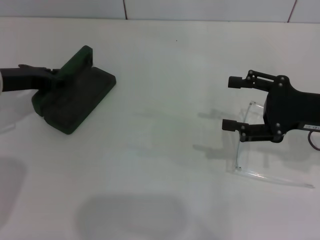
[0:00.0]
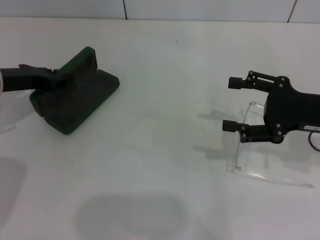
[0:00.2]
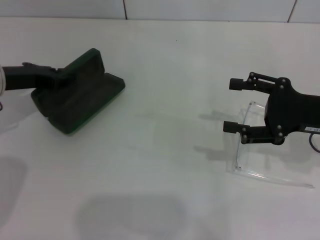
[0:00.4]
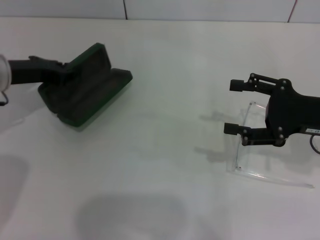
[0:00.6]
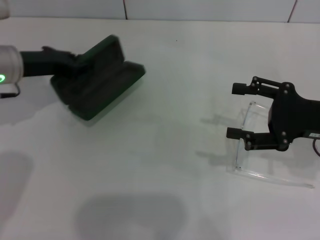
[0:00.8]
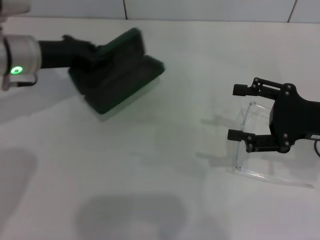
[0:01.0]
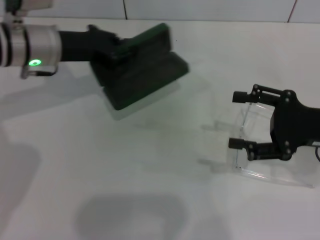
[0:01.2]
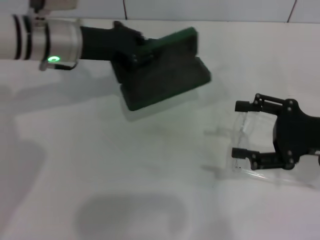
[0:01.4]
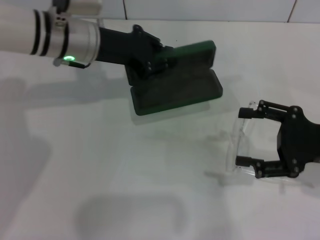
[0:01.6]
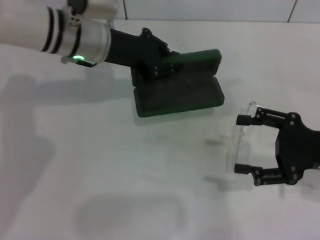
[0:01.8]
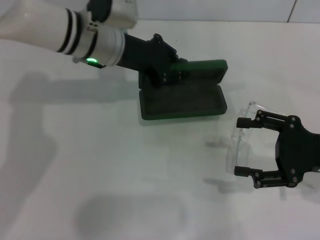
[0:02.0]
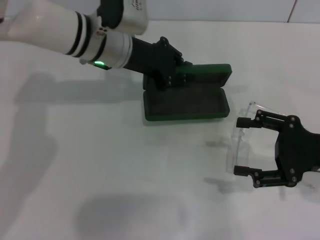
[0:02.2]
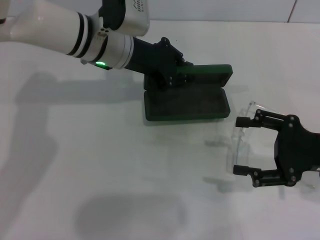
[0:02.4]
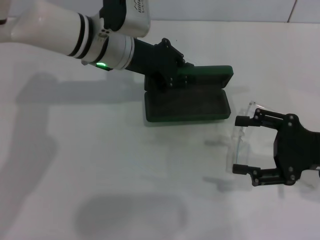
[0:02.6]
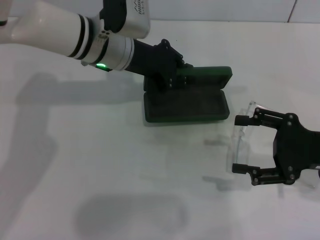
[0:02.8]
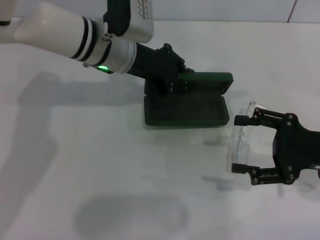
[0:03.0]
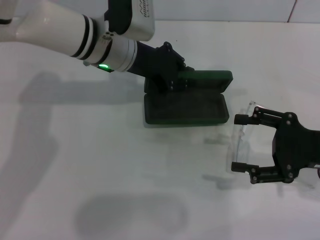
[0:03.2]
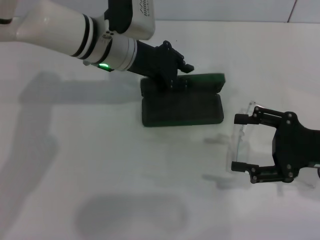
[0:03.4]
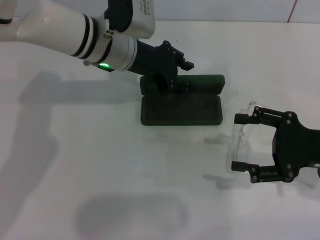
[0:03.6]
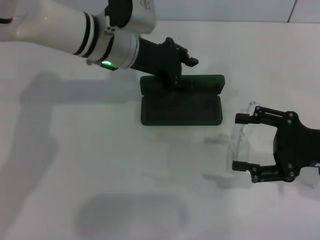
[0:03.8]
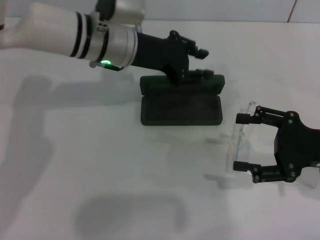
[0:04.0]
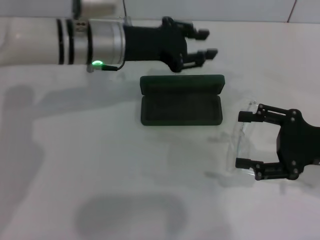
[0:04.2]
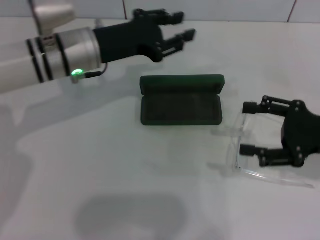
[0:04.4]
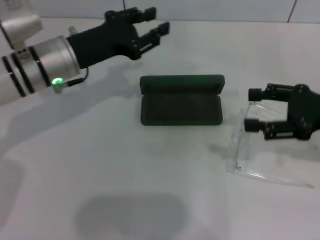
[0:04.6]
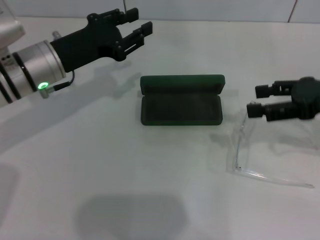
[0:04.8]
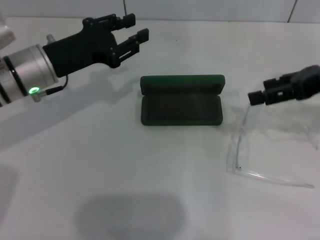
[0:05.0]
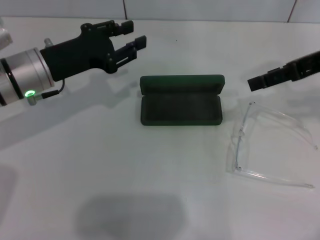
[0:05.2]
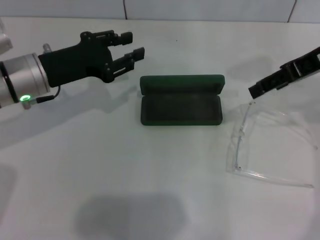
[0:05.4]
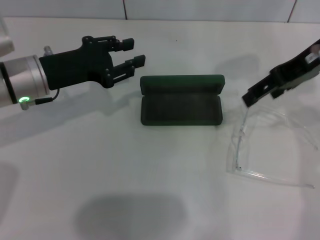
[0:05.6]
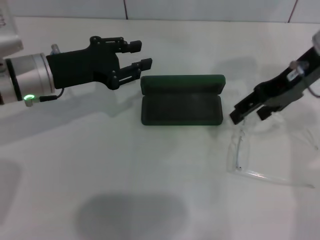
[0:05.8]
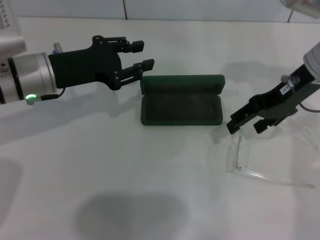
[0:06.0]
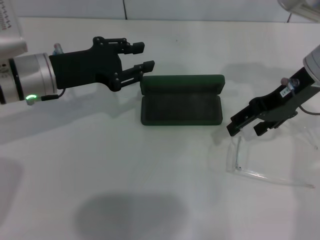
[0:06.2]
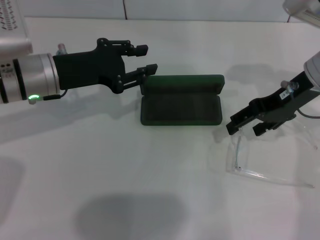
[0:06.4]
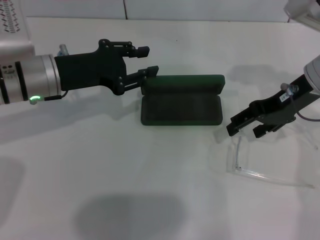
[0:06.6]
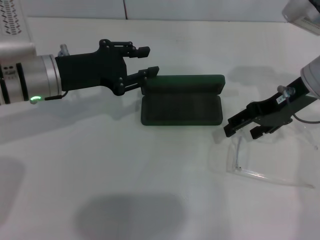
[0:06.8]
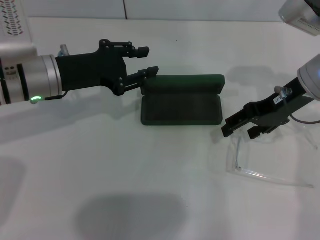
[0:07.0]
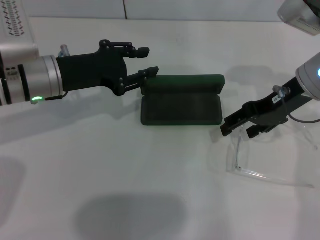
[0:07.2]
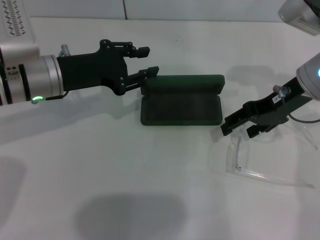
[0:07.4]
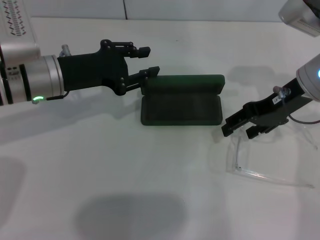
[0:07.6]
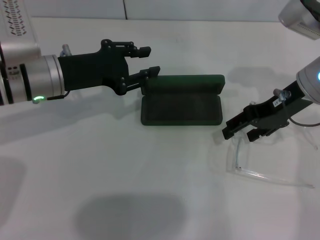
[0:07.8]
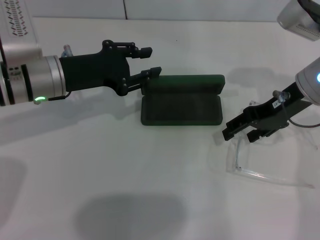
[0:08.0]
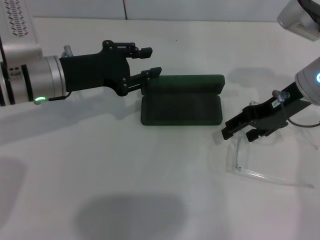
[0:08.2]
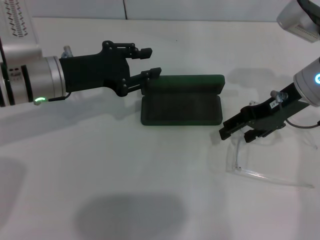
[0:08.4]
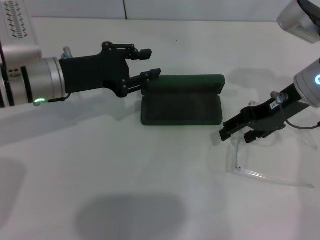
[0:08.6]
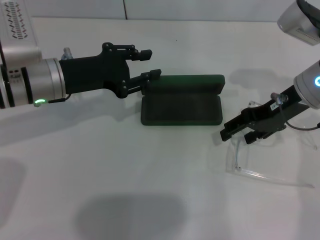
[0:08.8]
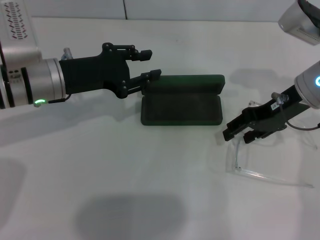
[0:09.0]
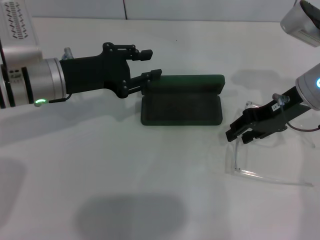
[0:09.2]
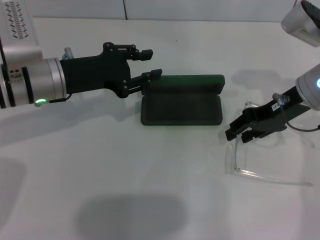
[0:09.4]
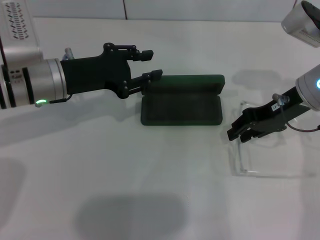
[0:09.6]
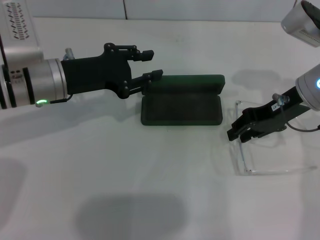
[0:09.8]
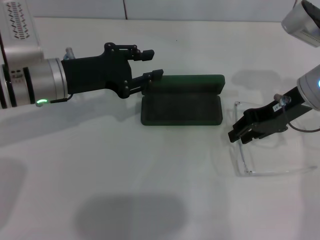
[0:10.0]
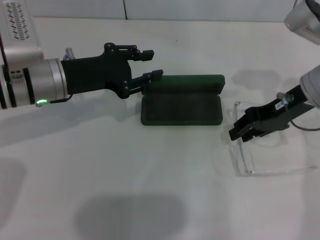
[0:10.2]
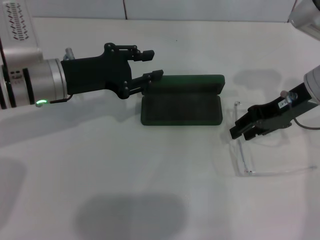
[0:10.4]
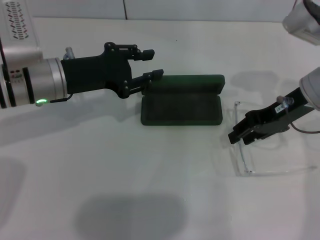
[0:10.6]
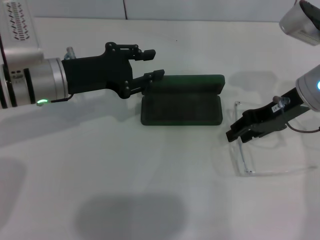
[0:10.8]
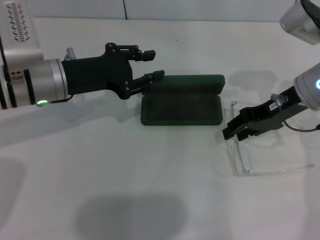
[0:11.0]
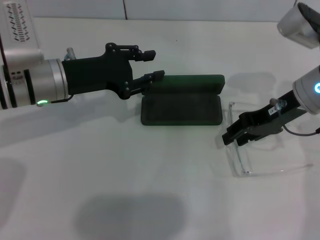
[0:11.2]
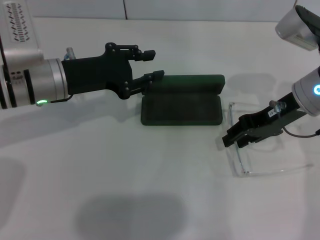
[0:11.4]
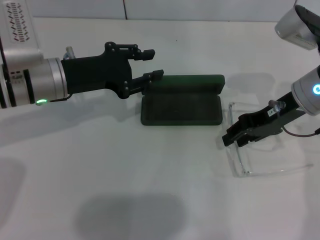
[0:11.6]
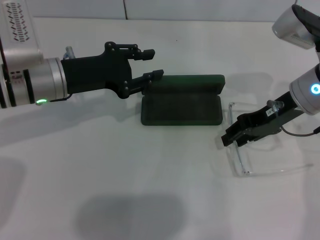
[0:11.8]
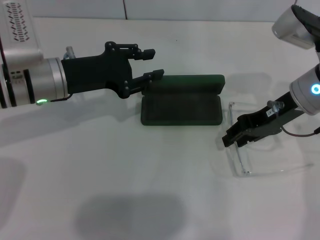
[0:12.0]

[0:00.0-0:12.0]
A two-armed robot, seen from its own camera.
Step, 0:00.0 to 0:03.6: Place the glasses case in the center of the table with your left hand.
0:00.0 to 0:01.6: The left gripper goes about 15 cm to the right, and closes up.
0:01.6 to 0:03.0: The left gripper moves approximately 5 cm.
0:03.0 to 0:04.4: The left gripper heads to the left, covering some 5 cm, and opens up.
0:04.4 to 0:06.0: The left gripper is displaced to the left by roughly 5 cm. The right gripper shifts roughly 15 cm forward, to the left and upward.
0:06.0 to 0:09.0: The grippers stay close to where they were, moving slightly.
0:09.0 to 0:10.4: The right gripper closes its fingers.
0:10.4 to 0:12.0: There are only small adjustments of the grippers.

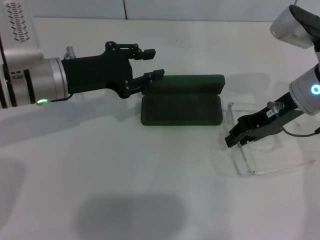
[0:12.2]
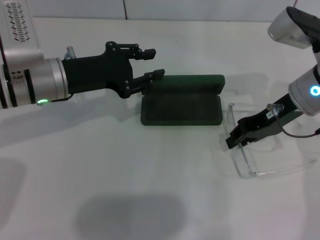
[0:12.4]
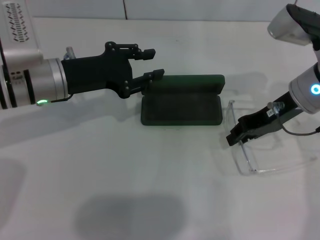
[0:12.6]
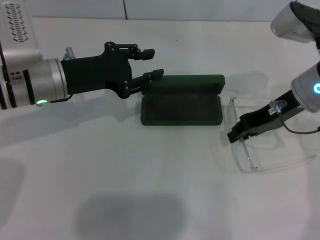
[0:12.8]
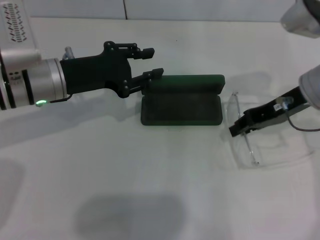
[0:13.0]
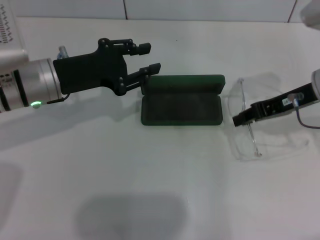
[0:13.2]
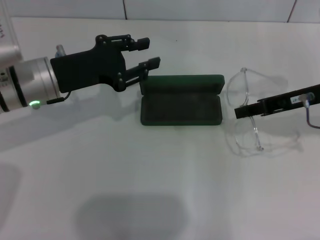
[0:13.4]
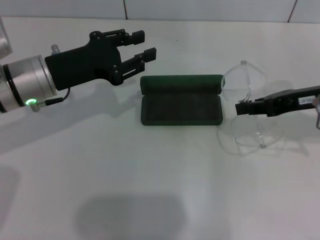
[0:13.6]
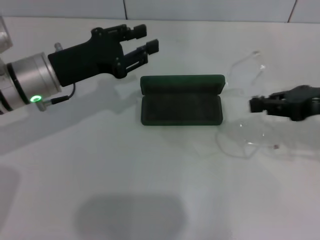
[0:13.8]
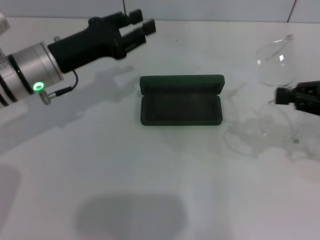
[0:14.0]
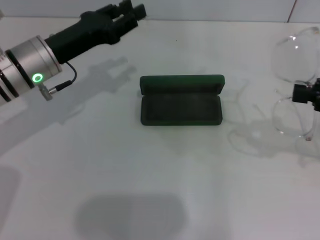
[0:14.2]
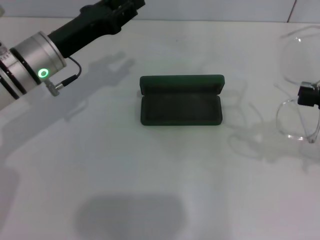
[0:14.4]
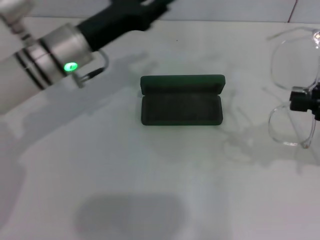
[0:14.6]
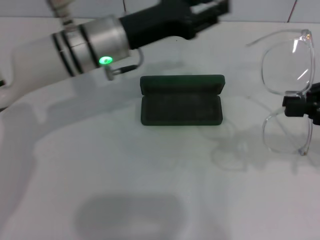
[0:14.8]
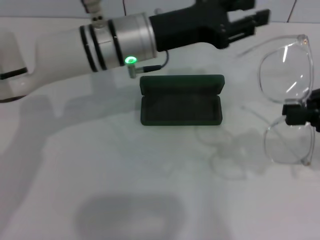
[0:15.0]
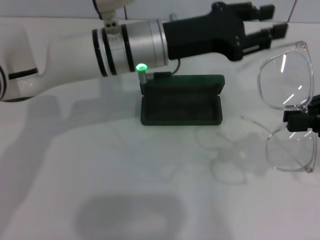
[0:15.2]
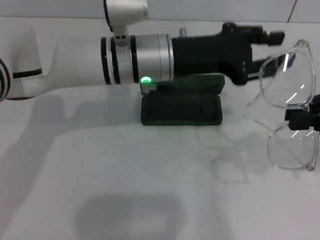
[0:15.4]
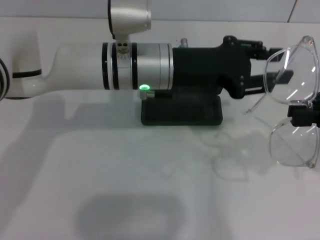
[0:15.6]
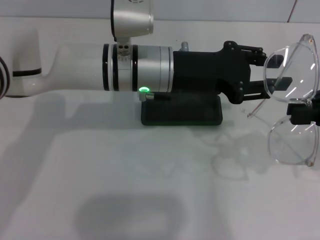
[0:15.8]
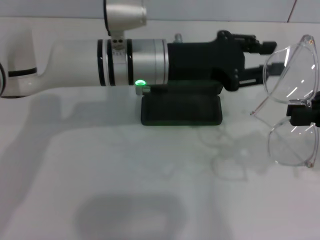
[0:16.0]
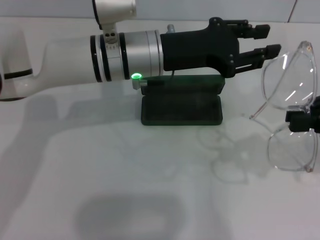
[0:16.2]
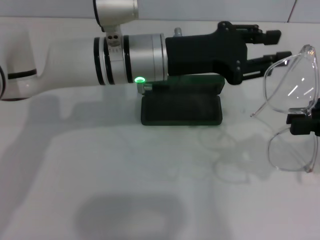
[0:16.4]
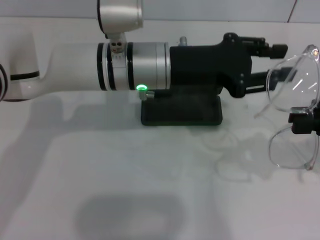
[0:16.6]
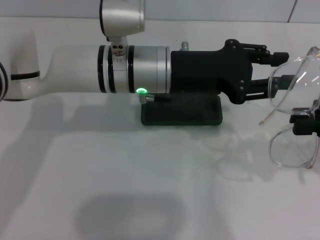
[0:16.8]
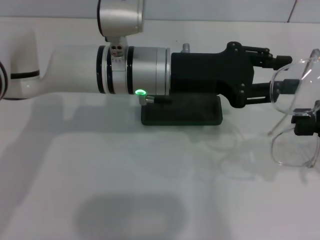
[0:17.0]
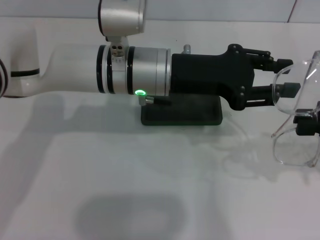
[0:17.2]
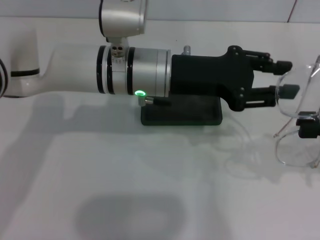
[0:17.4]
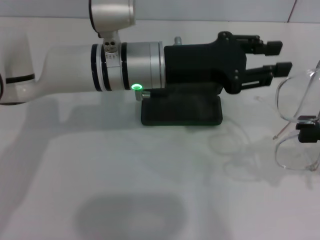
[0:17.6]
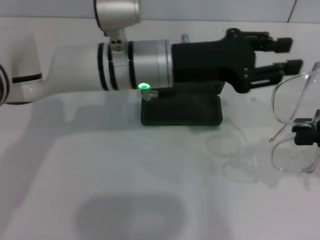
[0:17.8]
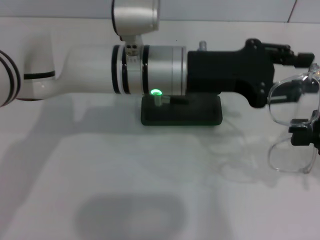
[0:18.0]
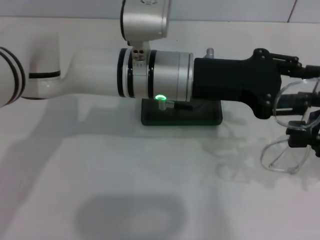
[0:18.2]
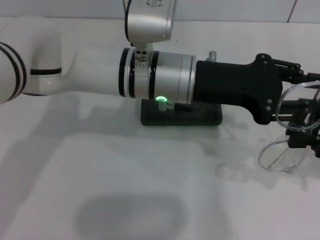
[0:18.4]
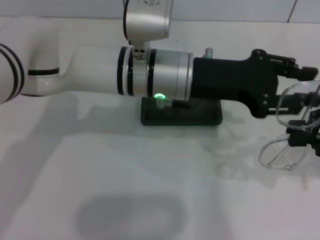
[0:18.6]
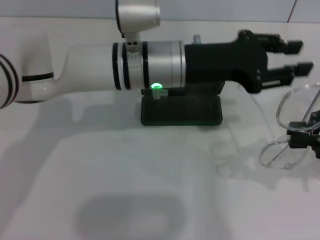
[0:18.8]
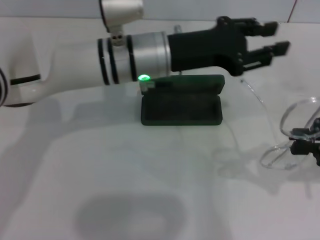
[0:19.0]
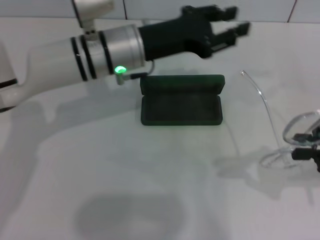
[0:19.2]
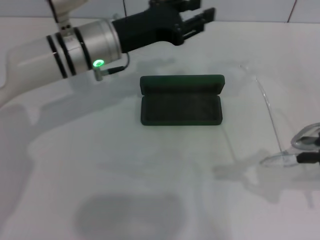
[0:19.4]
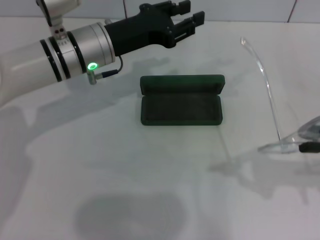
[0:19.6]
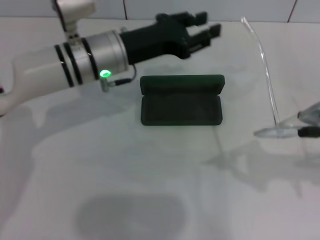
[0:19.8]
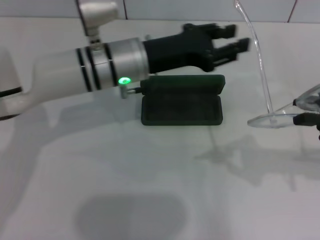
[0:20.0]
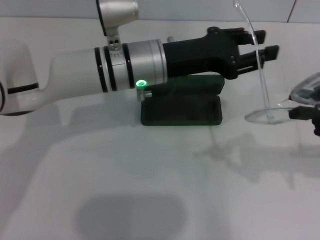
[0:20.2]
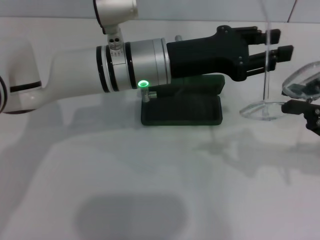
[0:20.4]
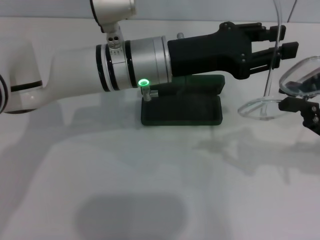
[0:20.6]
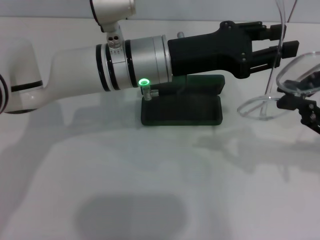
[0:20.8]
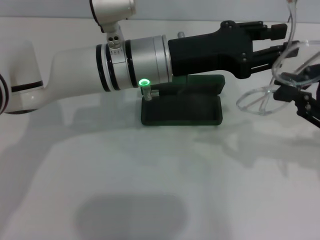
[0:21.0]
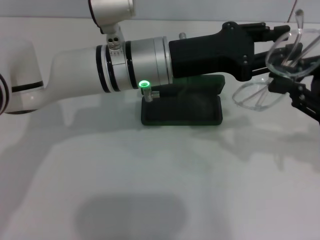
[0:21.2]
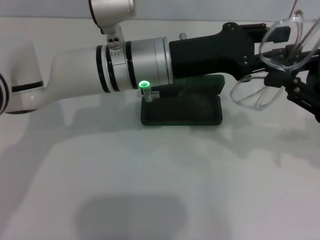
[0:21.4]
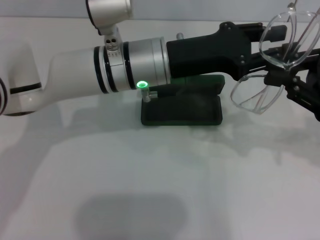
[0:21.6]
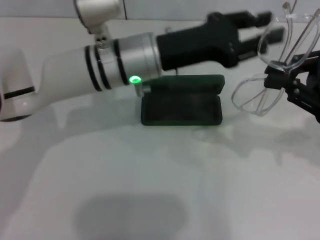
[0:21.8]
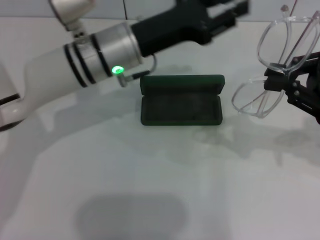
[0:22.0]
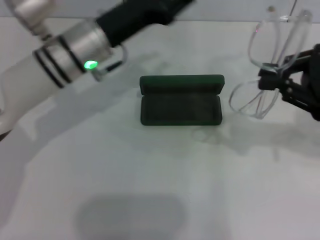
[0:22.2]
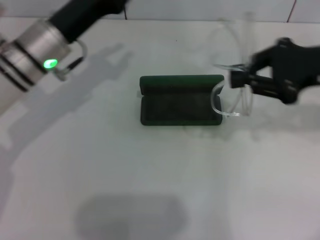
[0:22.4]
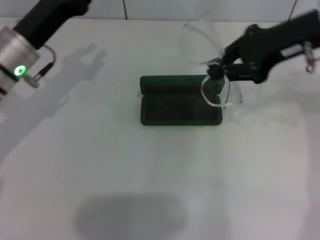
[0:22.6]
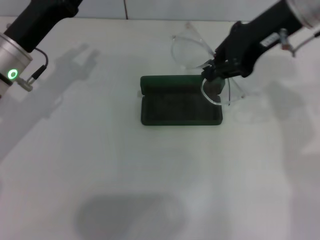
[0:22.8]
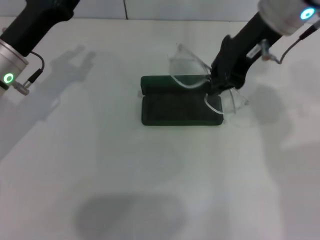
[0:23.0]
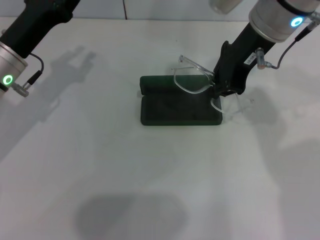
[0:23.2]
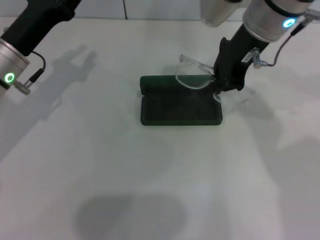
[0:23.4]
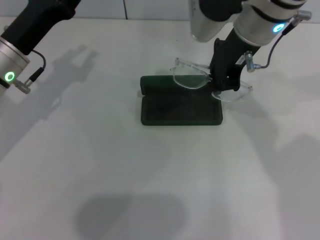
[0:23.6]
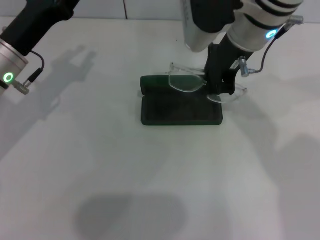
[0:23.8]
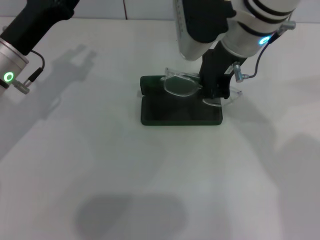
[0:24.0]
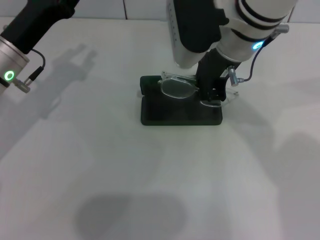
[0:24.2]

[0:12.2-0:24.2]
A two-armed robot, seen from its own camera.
Step, 0:12.4 to 0:21.6: Fold the frame with your left hand.
0:12.2 to 0:13.8: The right gripper is displaced to the right and backward by some 10 cm.
0:13.8 to 0:15.2: The left gripper is displaced to the right by about 15 cm.
0:15.2 to 0:16.6: There are only small adjustments of the grippers.
0:18.2 to 0:19.8: The left gripper shifts about 10 cm to the left.
0:19.8 to 0:21.2: The left gripper is displaced to the right by approximately 5 cm.
0:21.2 to 0:22.6: The left gripper is displaced to the left by about 15 cm. The right gripper is displaced to the left, forward and upward by approximately 15 cm.
0:22.6 to 0:24.2: The right gripper goes about 15 cm to the left.
